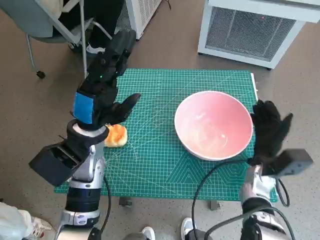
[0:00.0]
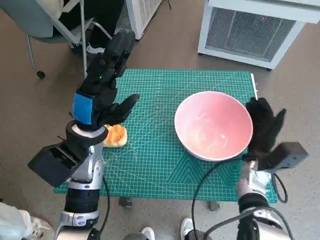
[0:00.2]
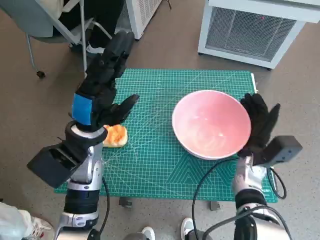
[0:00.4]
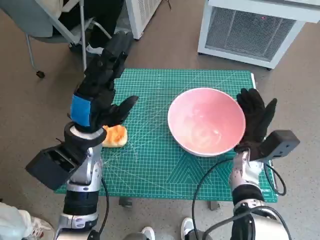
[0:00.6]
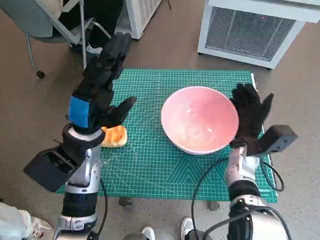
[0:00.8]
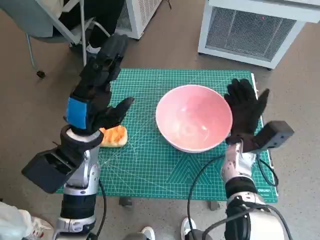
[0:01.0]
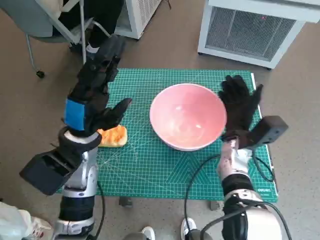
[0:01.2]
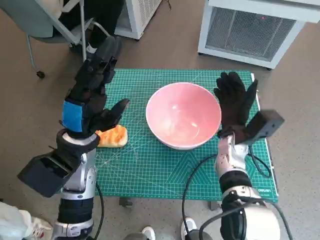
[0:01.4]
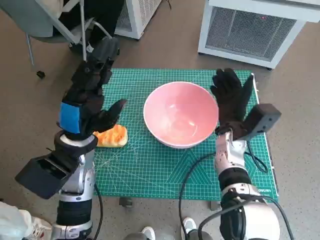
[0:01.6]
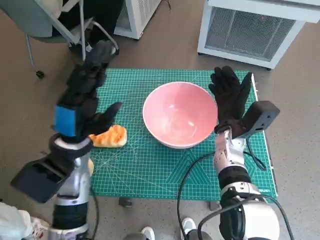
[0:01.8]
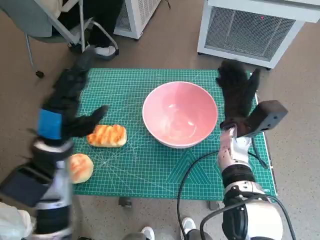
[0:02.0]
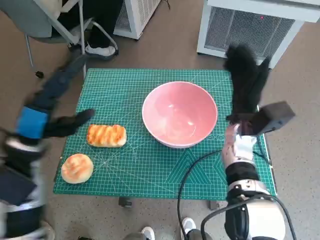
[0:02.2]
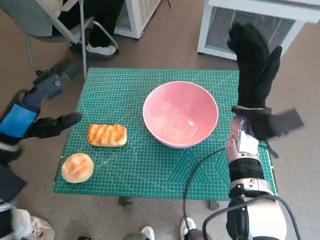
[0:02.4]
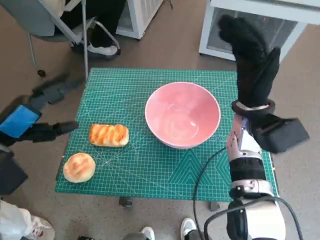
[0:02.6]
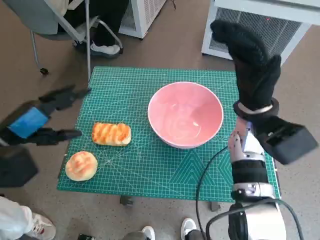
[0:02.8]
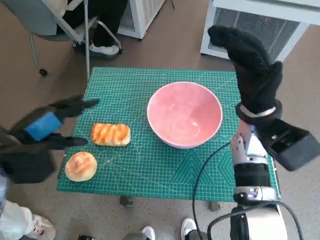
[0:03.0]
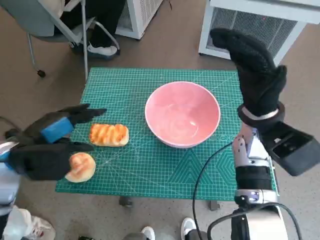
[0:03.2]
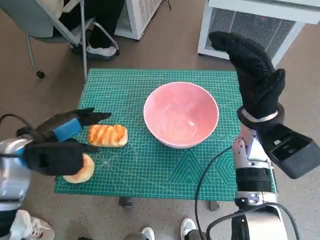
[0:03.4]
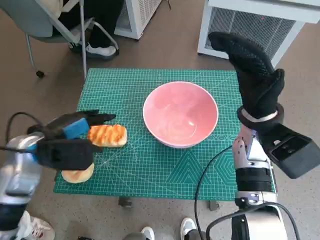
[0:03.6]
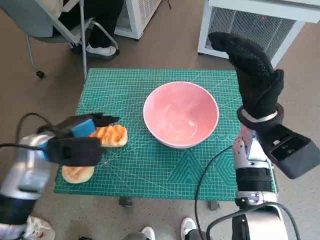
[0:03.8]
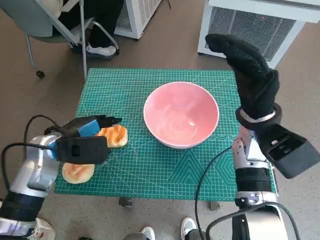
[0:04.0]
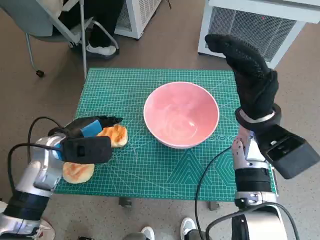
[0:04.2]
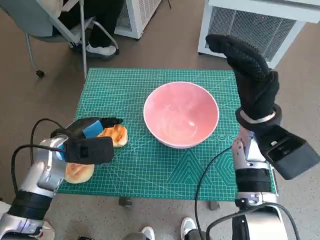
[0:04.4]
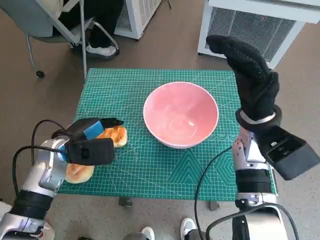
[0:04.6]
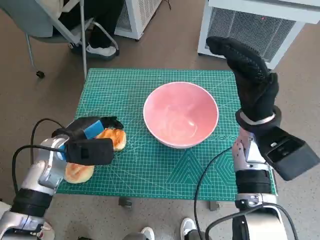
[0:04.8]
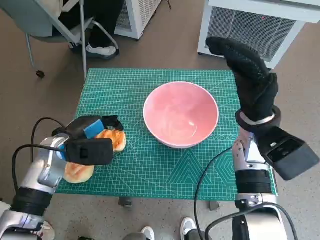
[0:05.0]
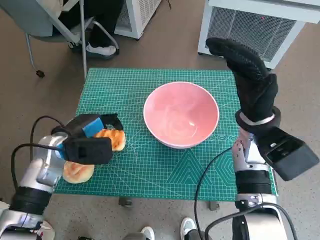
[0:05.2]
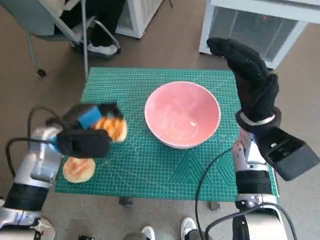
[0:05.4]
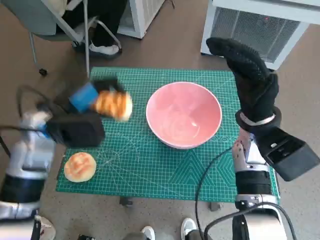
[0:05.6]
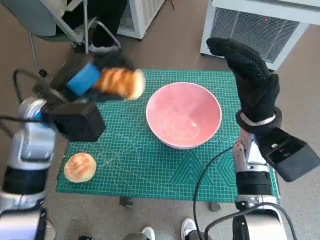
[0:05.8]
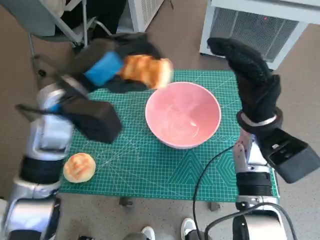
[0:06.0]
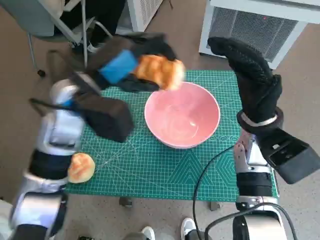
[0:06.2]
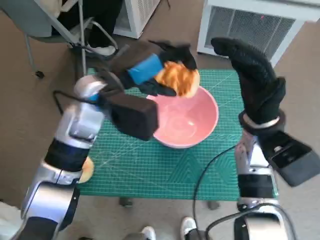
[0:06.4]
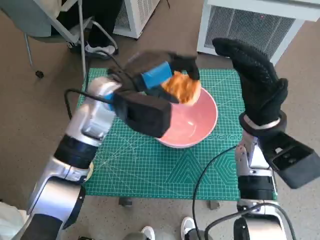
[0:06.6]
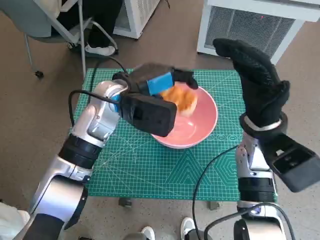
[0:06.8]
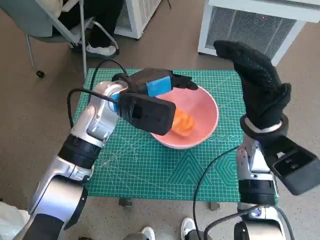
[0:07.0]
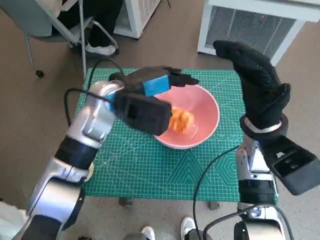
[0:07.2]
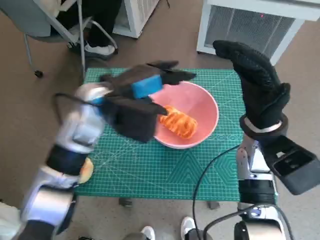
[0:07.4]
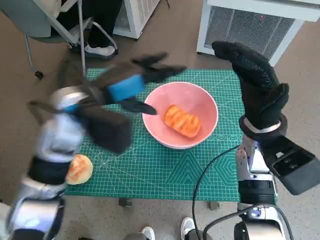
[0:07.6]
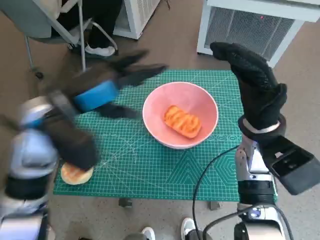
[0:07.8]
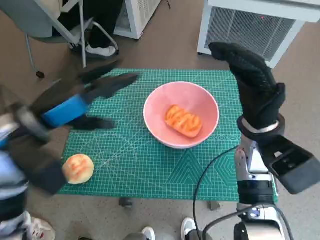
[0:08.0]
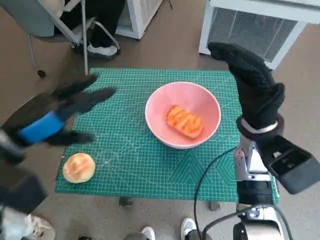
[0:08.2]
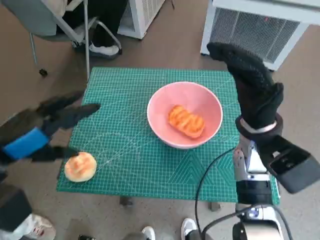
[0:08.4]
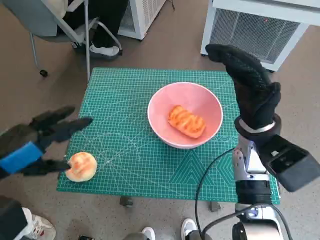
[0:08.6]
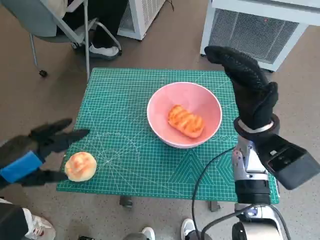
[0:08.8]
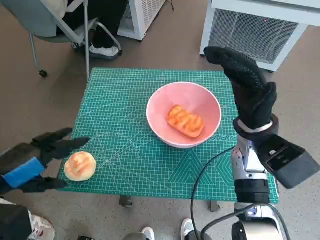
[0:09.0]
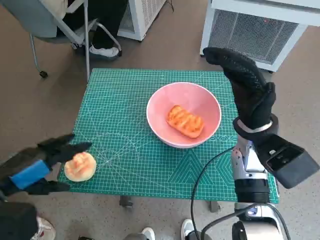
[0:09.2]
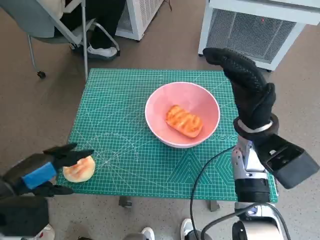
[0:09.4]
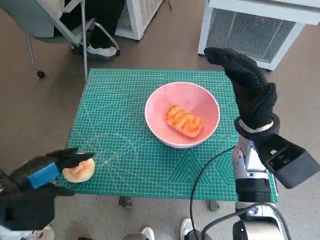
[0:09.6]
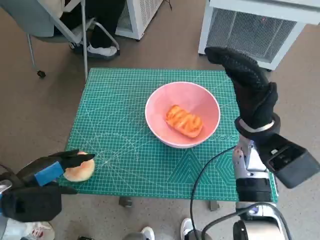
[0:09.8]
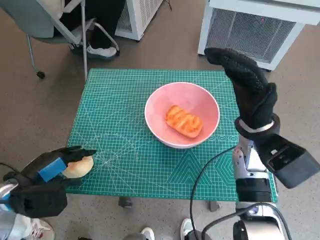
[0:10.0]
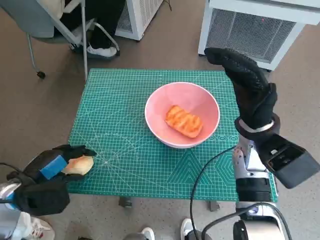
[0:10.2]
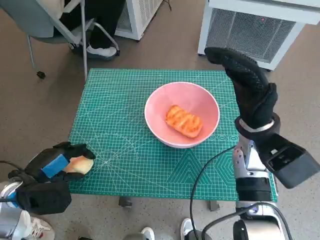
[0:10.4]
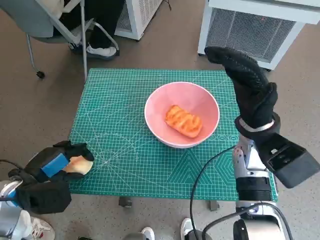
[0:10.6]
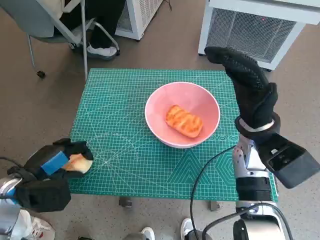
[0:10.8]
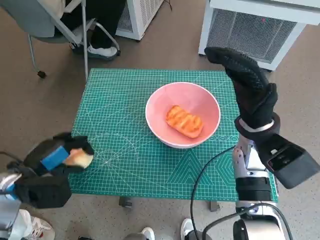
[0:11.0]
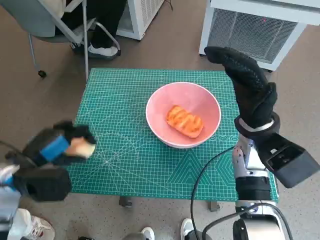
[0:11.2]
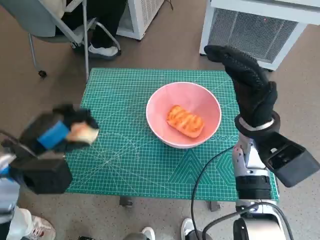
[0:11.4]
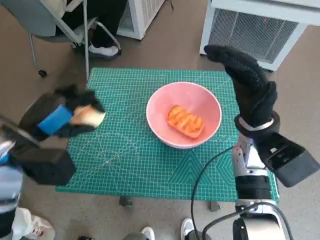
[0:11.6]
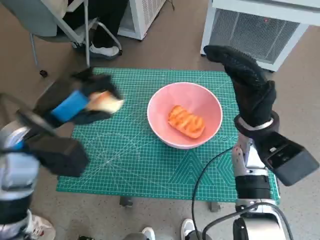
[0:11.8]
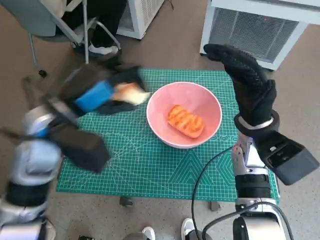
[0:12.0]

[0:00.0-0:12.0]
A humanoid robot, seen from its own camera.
Task of the whole recording: Push the bowl to the center of the table and put the bread into the bowl.
Step, 0:00.0 to 0:02.0: Move the pink bowl to the center of table with right hand.
Step, 0:02.2 to 0:04.8: Grasp the long bread with left hand.
Step, 0:05.0 to 0:07.2: Place the long bread in pink bowl with left hand.
Step, 0:07.4 to 0:10.2: Grasp the round bread with left hand.
0:00.0 to 0:01.6: The right hand travels to the left, upward and forward by about 10 cm.
0:01.6 to 0:03.0: The left hand travels to the left by some 10 cm; the right hand shifts some 10 cm upward.
0:03.0 to 0:04.4: The left hand goes some 10 cm downward, forward and to the right.
0:04.4 to 0:06.0: The left hand shifts about 15 cm upward and to the right.
0:07.6 to 0:09.0: The left hand heads backward and to the left, covering some 20 cm.
0:09.0 to 0:10.4: The left hand is displaced downward by about 10 cm.
0:10.4 to 0:12.0: The left hand heads upward, to the right and forward, covering approximately 20 cm.

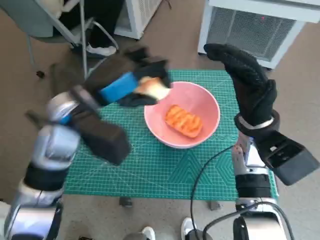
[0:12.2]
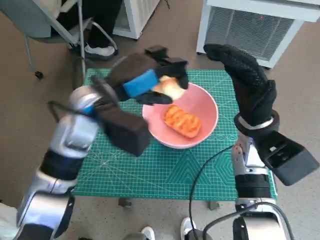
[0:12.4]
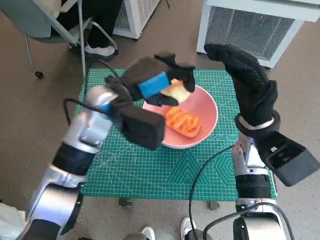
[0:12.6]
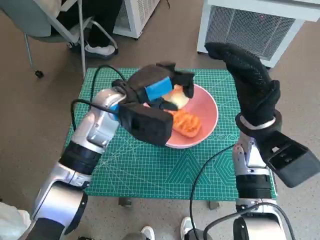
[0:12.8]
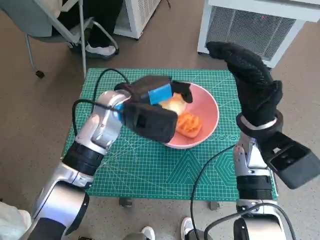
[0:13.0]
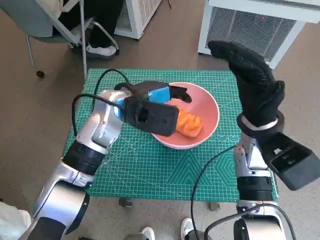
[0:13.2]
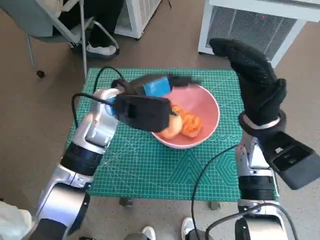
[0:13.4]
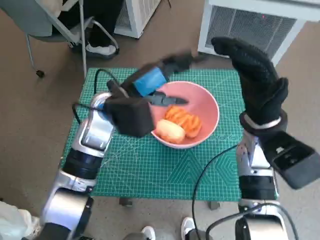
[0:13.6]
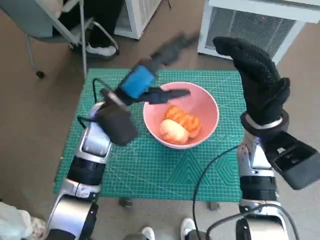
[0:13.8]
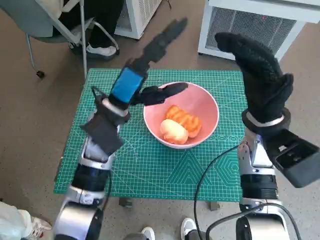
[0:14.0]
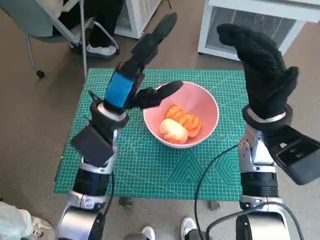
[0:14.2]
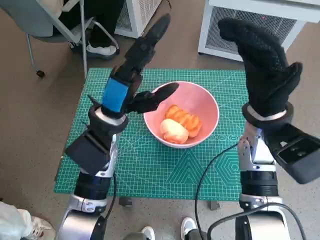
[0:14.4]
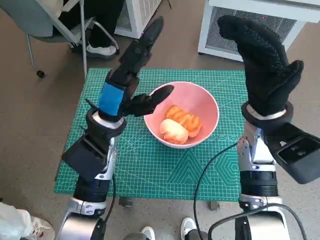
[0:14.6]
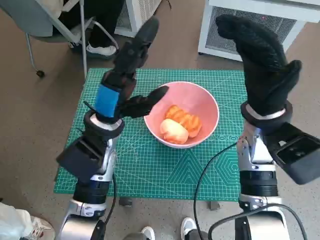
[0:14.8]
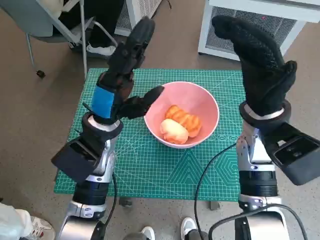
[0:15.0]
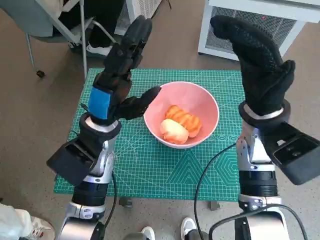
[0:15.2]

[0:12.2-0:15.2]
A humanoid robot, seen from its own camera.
Task of the whole recording: Push the bowl to the center of the table and put the bread into the bowl.
0:12.2 to 0:13.8: The left hand shifts by approximately 5 cm.

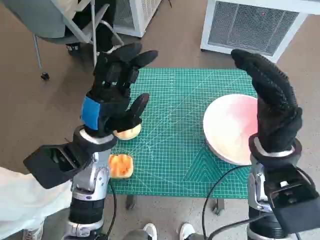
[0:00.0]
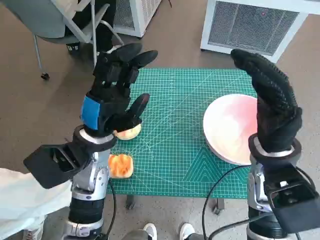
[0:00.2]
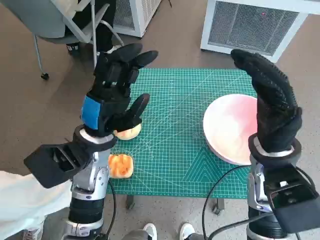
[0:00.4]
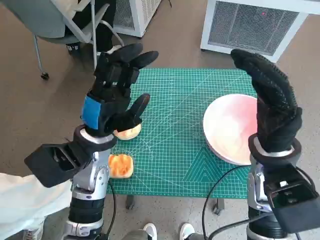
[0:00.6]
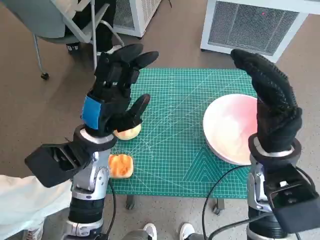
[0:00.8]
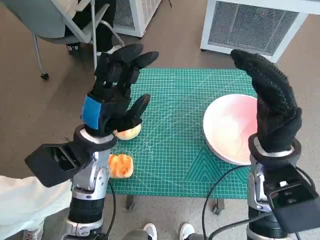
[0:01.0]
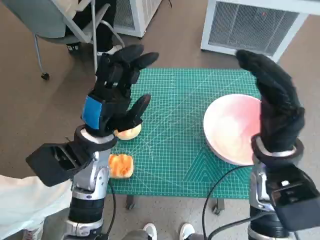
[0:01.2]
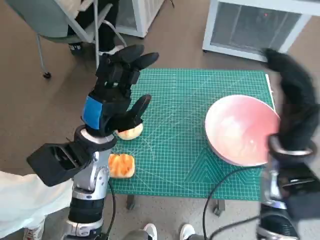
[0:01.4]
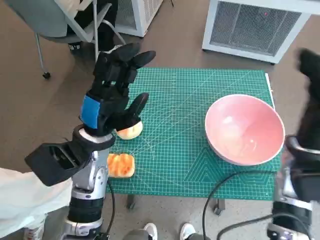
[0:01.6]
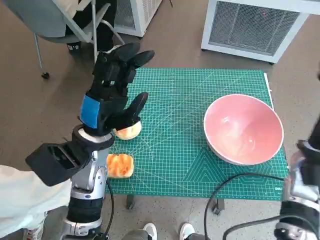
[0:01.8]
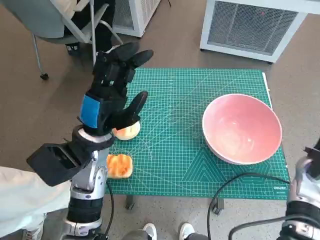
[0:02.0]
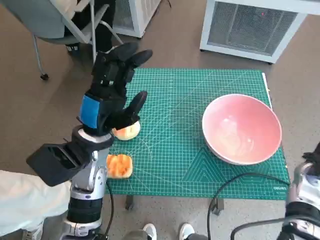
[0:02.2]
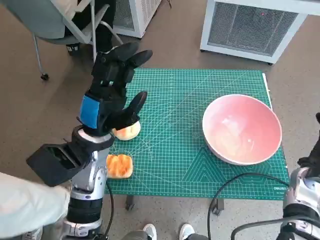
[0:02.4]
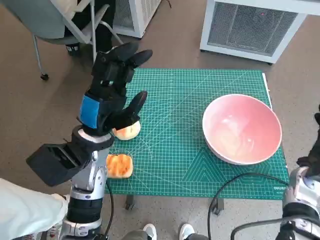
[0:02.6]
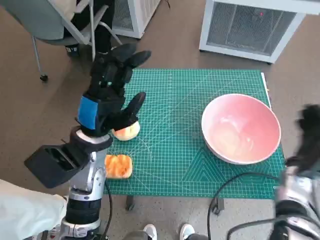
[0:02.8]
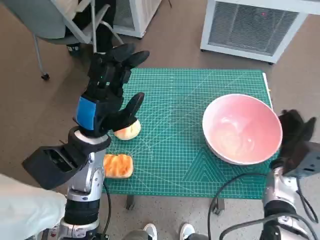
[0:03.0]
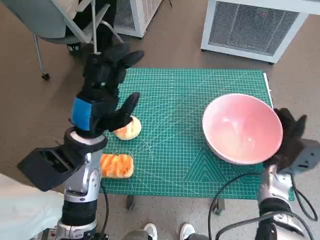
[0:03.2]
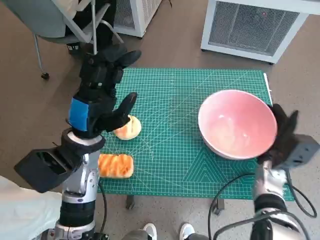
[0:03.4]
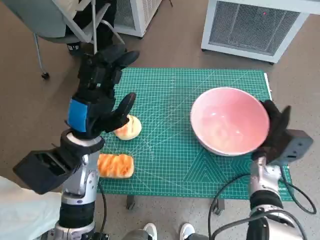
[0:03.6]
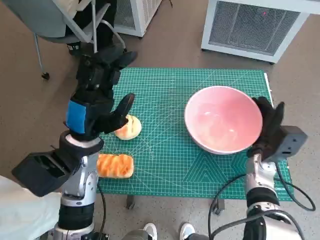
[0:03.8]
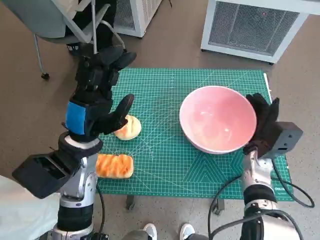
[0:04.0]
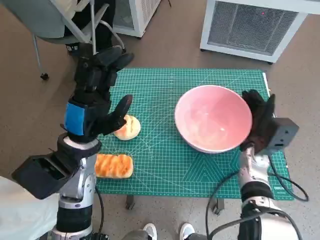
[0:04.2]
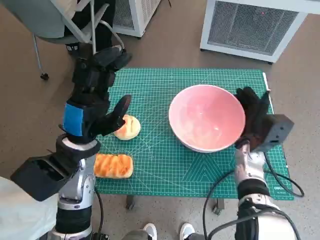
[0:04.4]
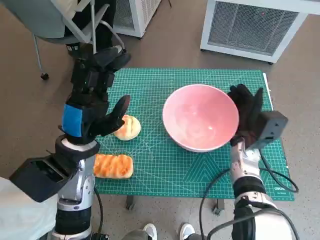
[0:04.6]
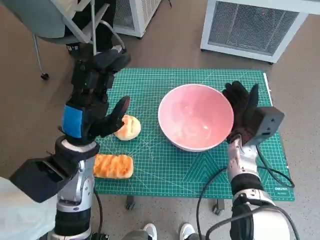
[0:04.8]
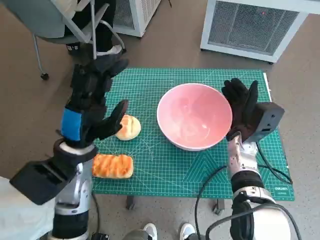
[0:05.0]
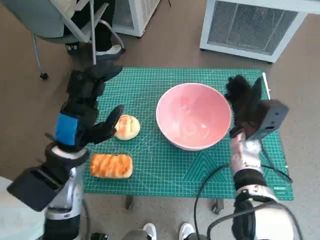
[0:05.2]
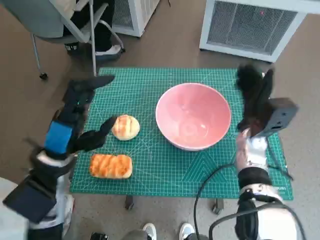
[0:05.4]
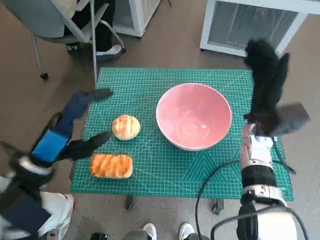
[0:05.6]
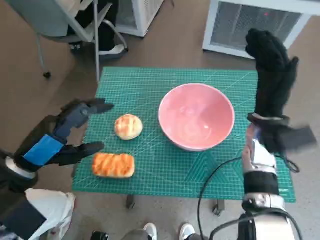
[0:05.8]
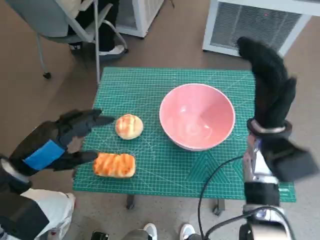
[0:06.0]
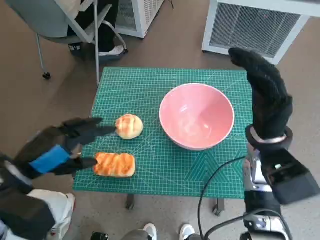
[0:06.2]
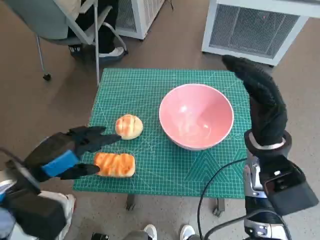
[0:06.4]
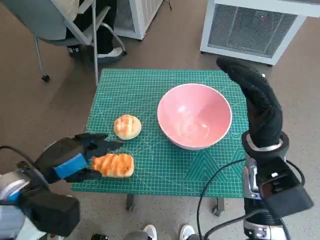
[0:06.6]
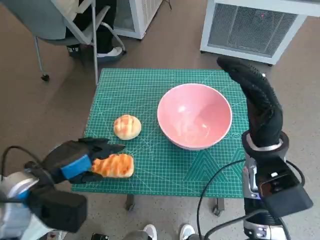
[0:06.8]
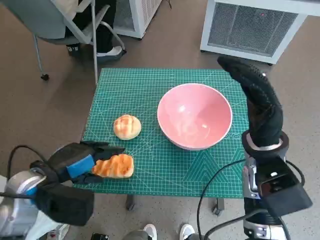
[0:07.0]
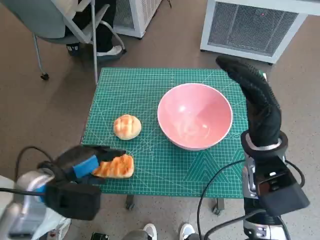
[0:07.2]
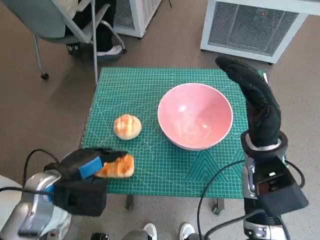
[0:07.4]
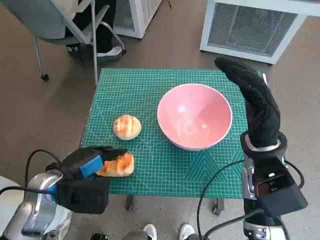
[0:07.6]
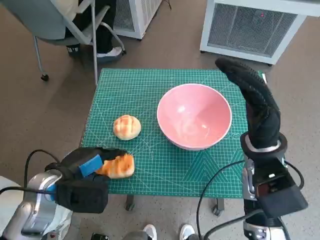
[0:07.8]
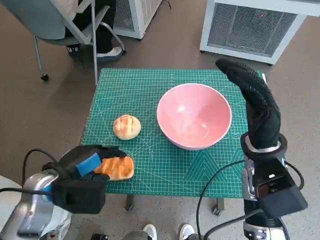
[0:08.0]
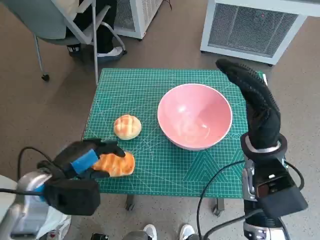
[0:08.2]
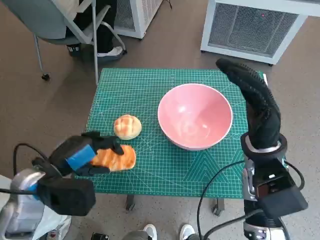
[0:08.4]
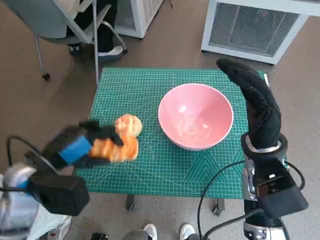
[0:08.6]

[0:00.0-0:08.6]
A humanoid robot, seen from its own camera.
Task of the whole recording: Push the bowl to the center of the table and put the bread into the bowl.
Step, 0:00.0 to 0:05.8: Move the pink bowl to the center of table with right hand.
Step, 0:06.0 to 0:07.8: Grasp the long bread with left hand.
0:01.4 to 0:02.8: The right hand moves downward and to the right, some 15 cm.
0:02.8 to 0:04.4: The right hand is displaced to the left by roughly 10 cm.
0:04.4 to 0:05.8: The left hand goes approximately 10 cm to the left and backward. Meanwhile the right hand shifts approximately 10 cm upward.
0:05.8 to 0:07.2: The right hand shifts roughly 5 cm backward. The left hand changes place by some 5 cm.
0:07.2 to 0:08.6: The hands move only a little.
